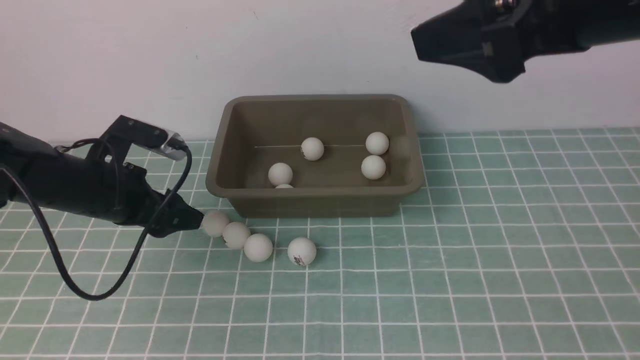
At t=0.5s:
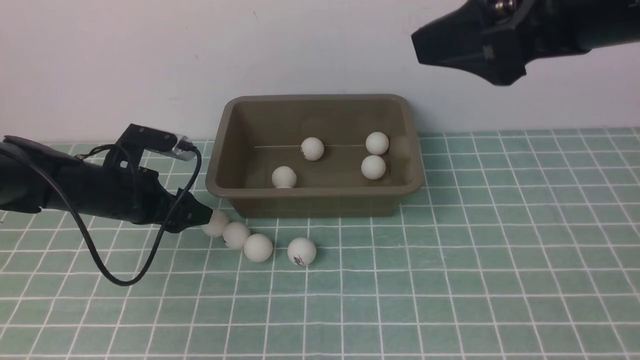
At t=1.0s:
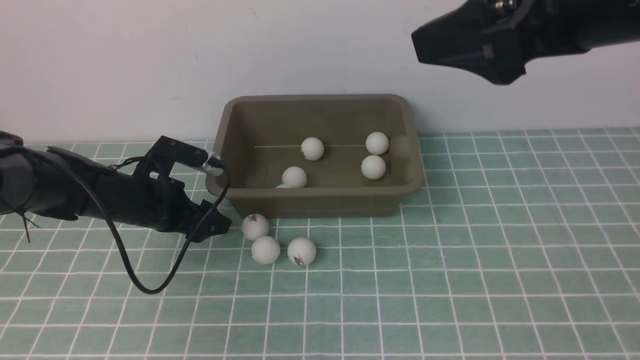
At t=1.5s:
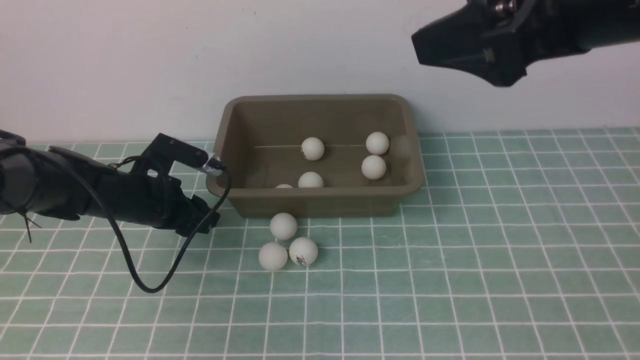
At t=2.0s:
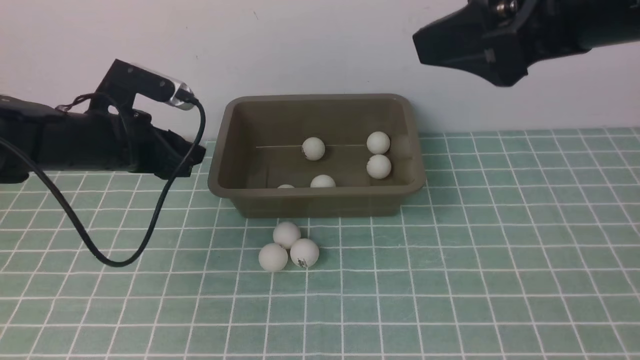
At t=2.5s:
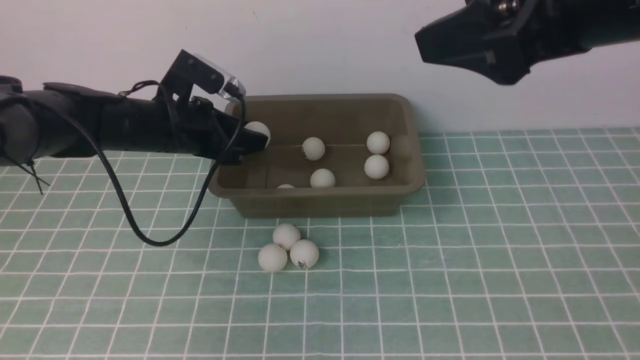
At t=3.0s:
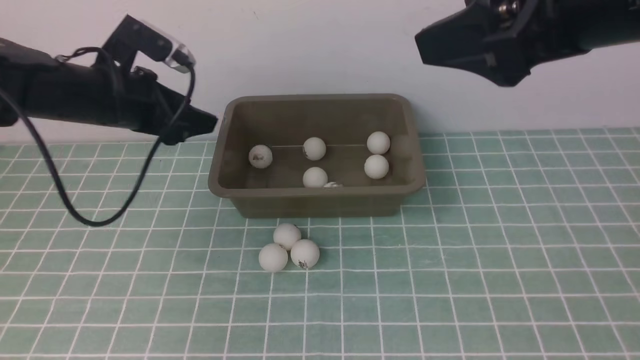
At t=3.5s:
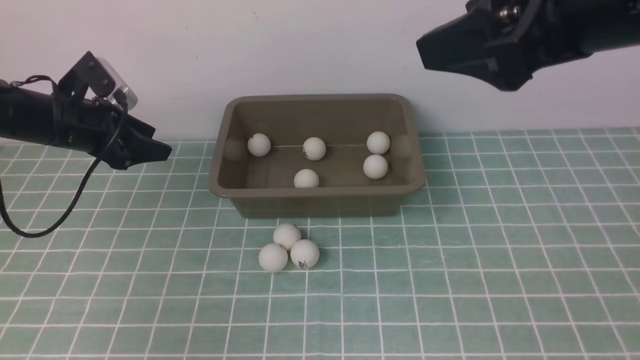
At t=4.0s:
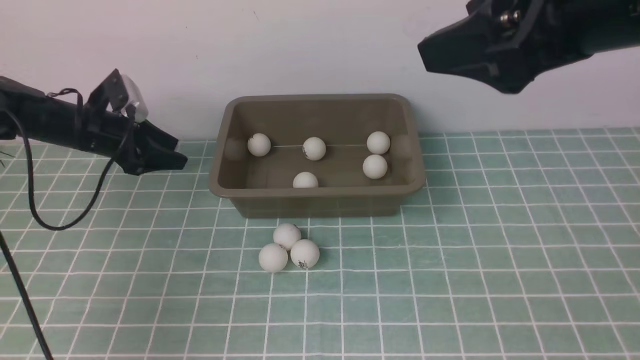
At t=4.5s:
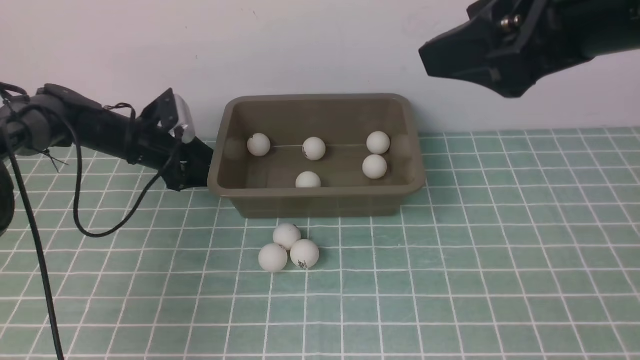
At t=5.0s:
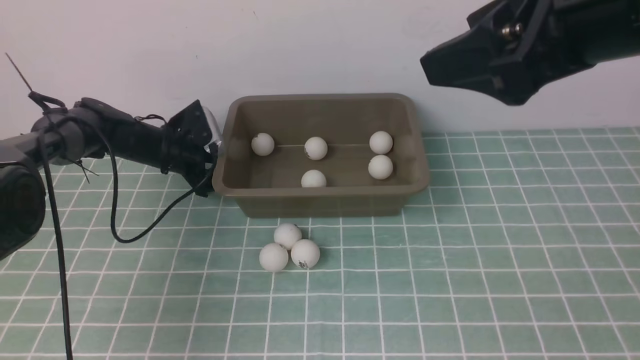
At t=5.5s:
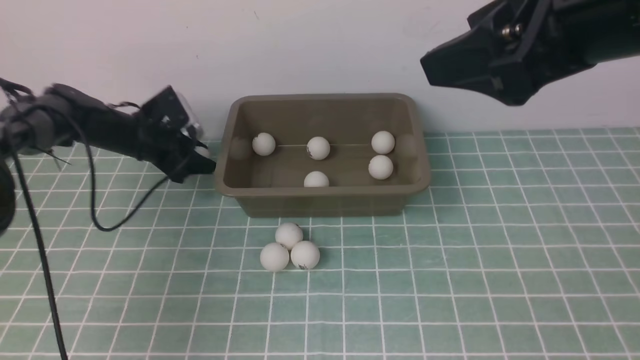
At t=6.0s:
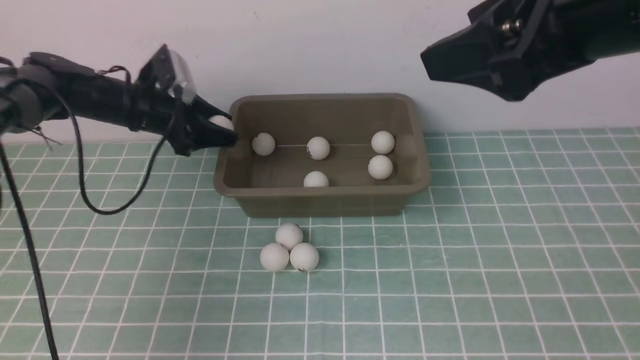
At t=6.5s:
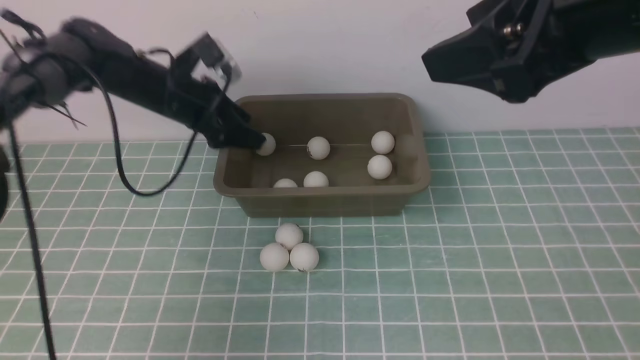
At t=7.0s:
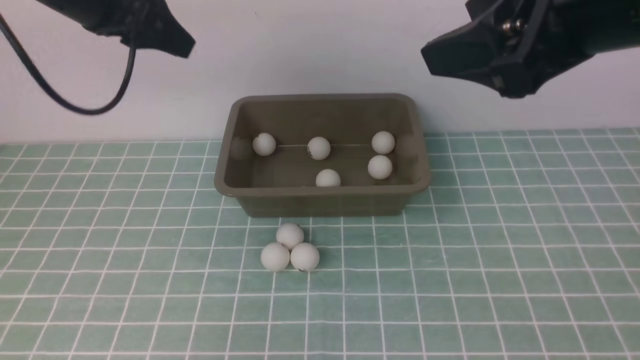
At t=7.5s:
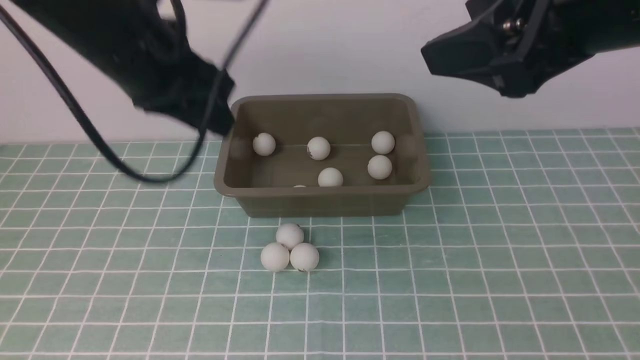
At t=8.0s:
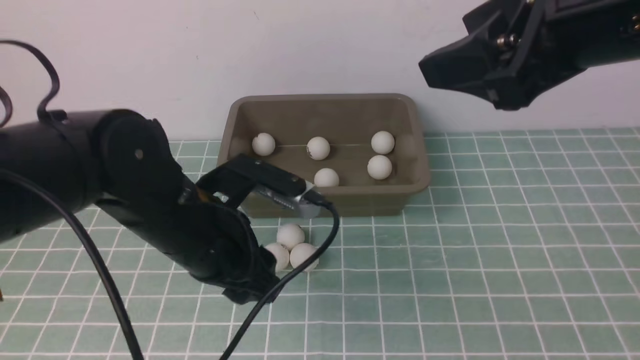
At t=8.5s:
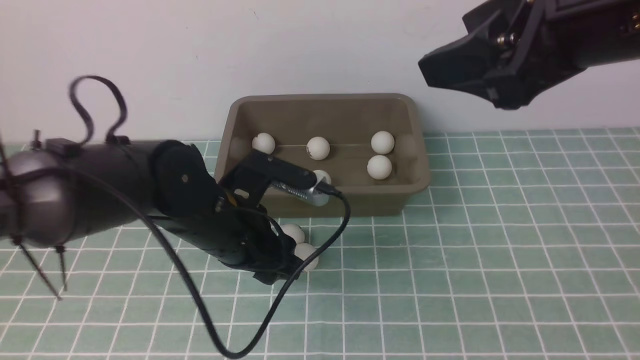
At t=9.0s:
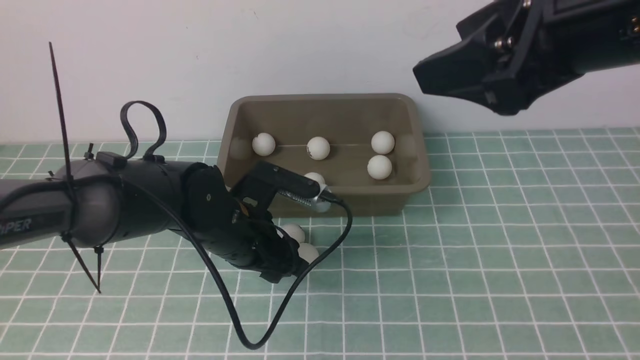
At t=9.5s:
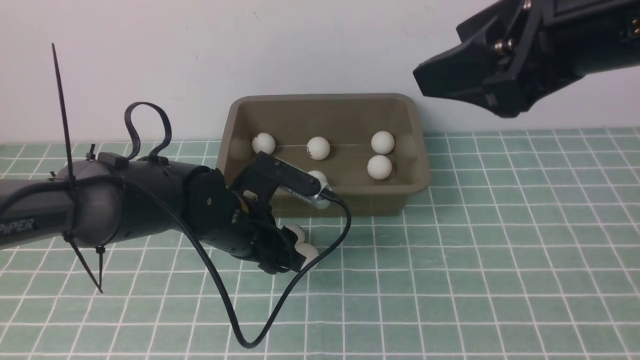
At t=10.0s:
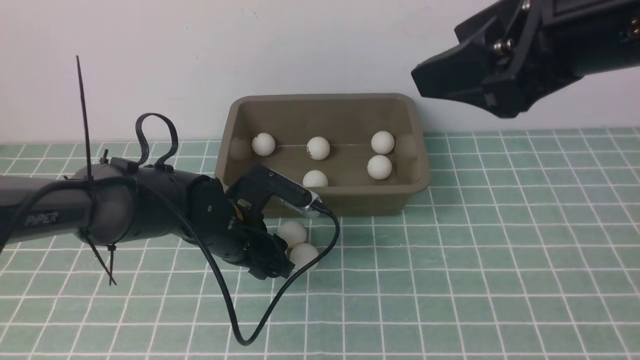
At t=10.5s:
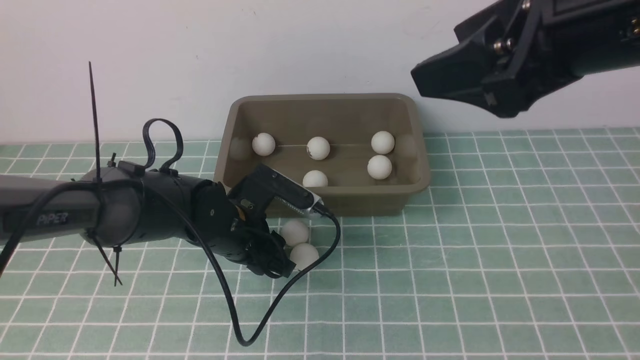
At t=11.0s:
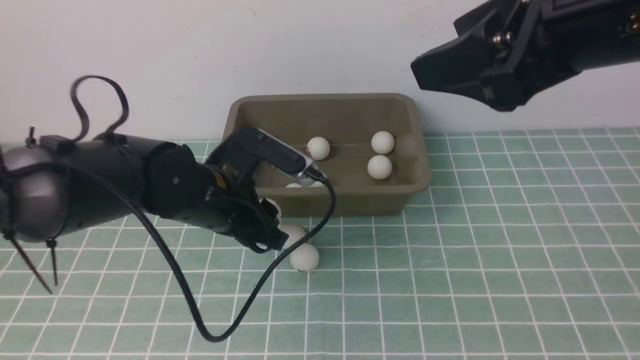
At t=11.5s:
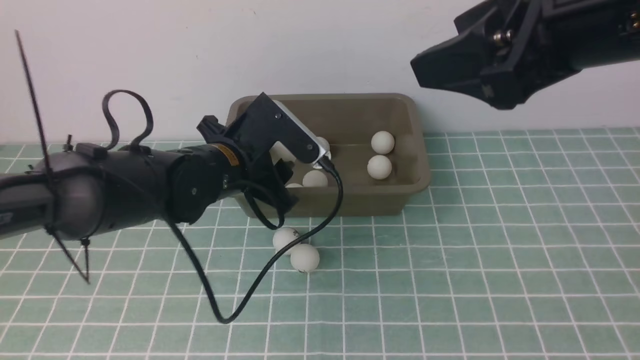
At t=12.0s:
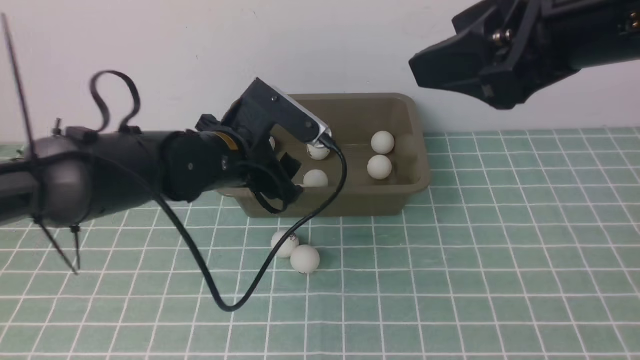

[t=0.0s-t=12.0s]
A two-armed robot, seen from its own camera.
Step, t=2.0s to t=2.5s: use the left arm to put the table tennis ball into the box.
Step, t=3.0s to t=5.5s: use the left arm to clamp the table tennis ball closest to it.
Step, t=7.0s to t=11.0s: use the left arm to clamp the table tennis ball closest to it.
Step, t=11.5s to t=12.0s: use the left arm to put the table tennis ball into the box.
t=0.0s to t=2.0s: The left gripper ends up about 5 cm from where it was, and closes up.
t=2.0s to t=4.0s: The left gripper travels forward, to the left and downward by approximately 15 cm, and opens up.
t=4.0s to t=6.0s: The left gripper moves to the right, approximately 5 cm, reaches roughly 5 cm downward, then returns, and closes.
t=6.0s to t=8.0s: The left gripper is displaced backward and to the right by about 25 cm, and opens, then closes once more.
t=8.0s to t=10.0s: The left gripper heads downward and forward, covering approximately 10 cm.
t=10.0s to t=12.0s: The left gripper moves upward, about 10 cm, and closes, then reopens.

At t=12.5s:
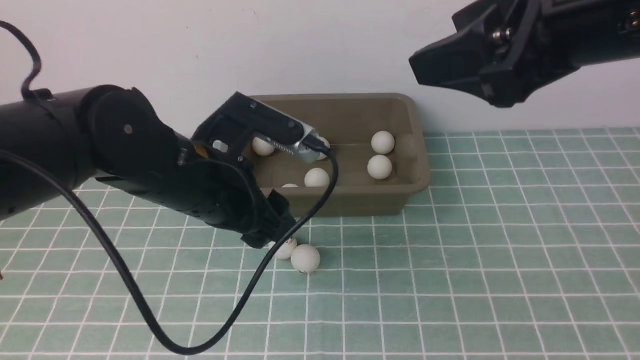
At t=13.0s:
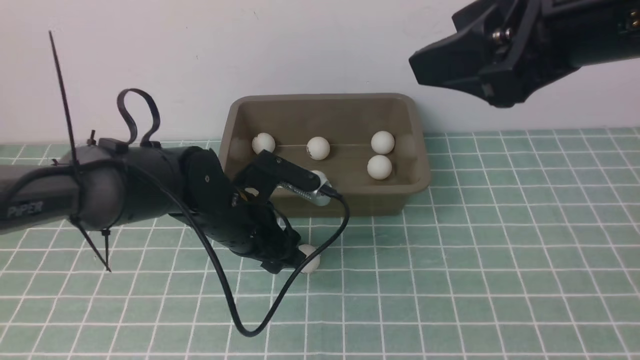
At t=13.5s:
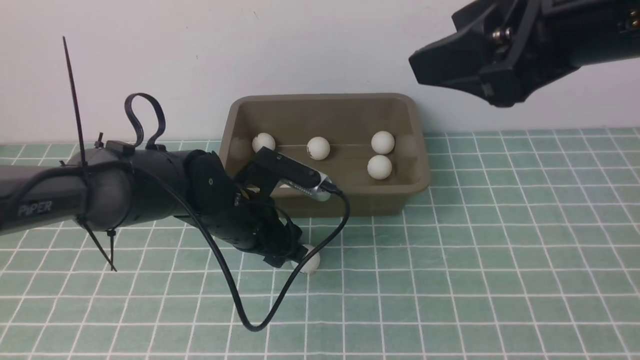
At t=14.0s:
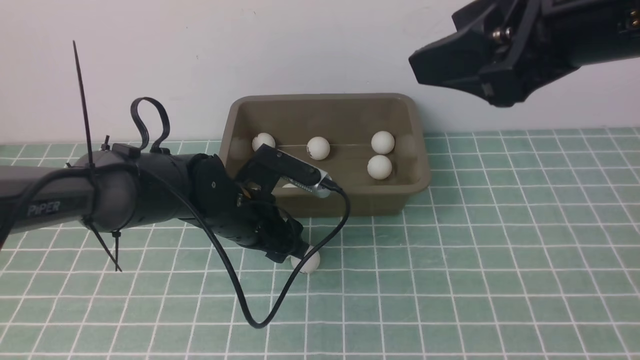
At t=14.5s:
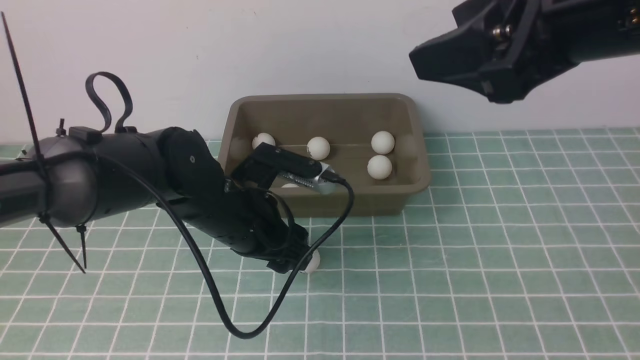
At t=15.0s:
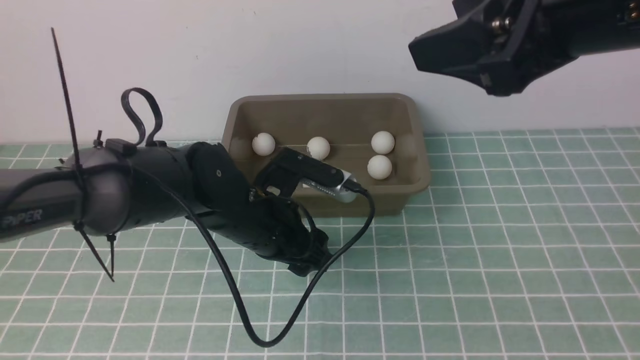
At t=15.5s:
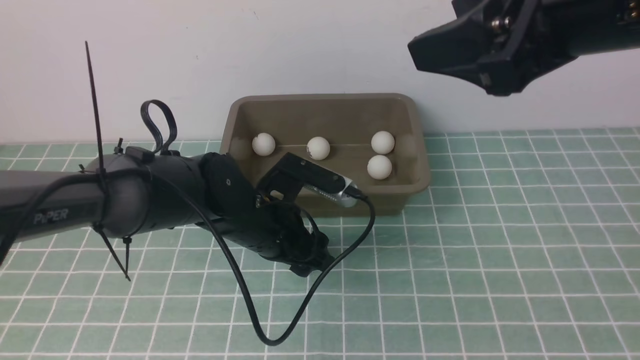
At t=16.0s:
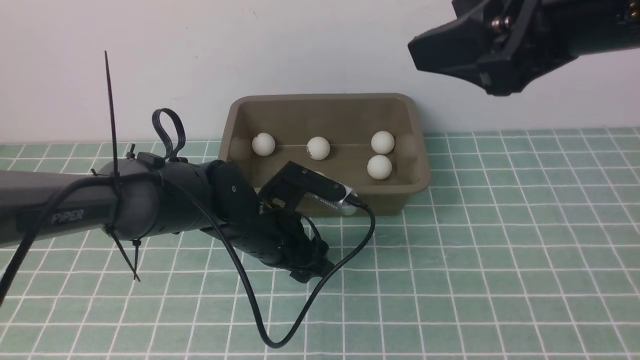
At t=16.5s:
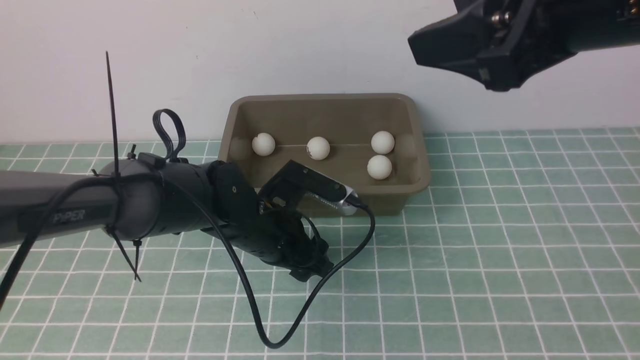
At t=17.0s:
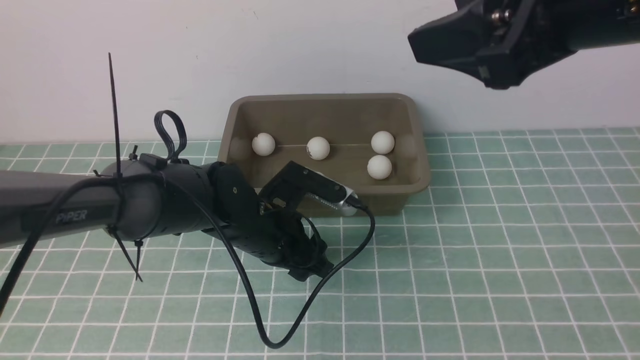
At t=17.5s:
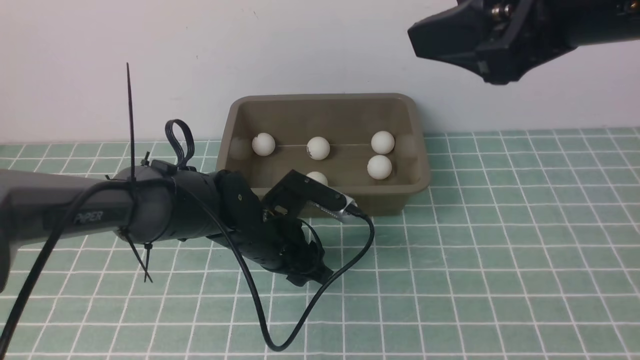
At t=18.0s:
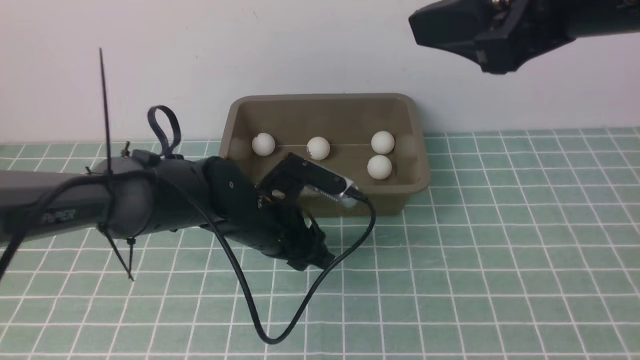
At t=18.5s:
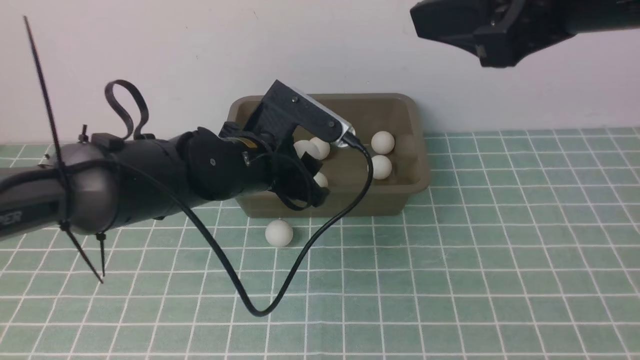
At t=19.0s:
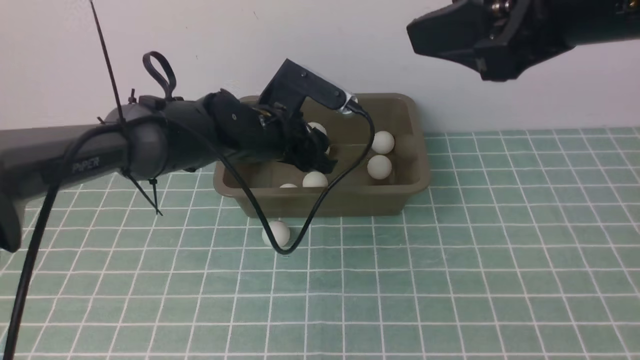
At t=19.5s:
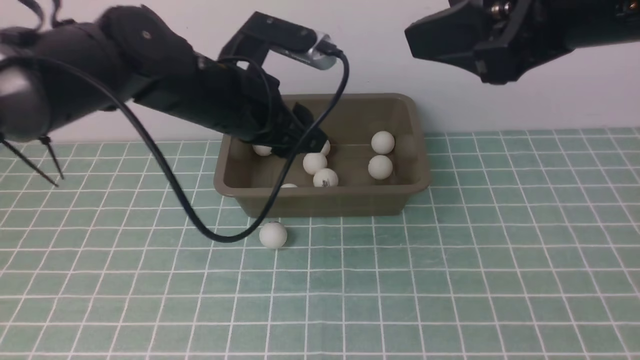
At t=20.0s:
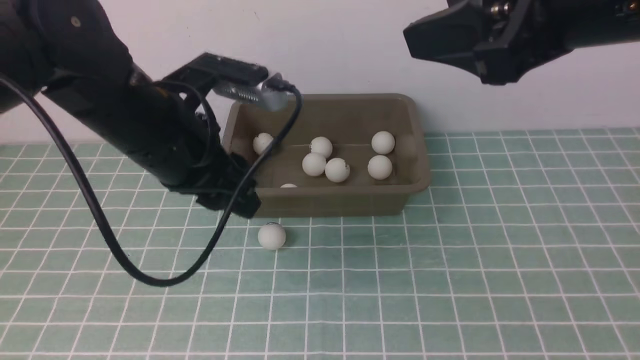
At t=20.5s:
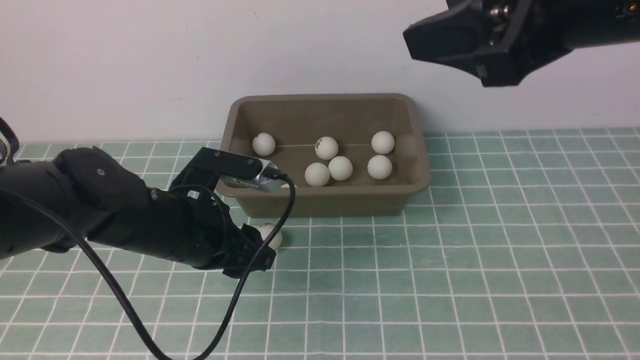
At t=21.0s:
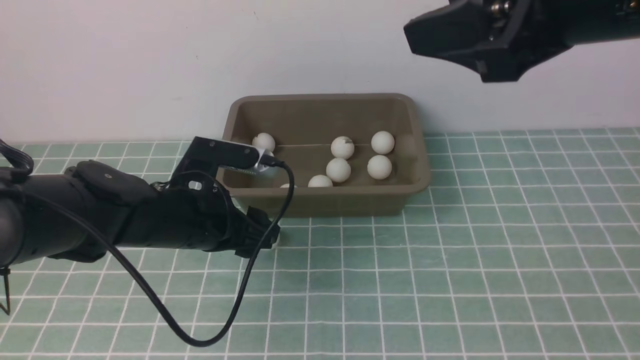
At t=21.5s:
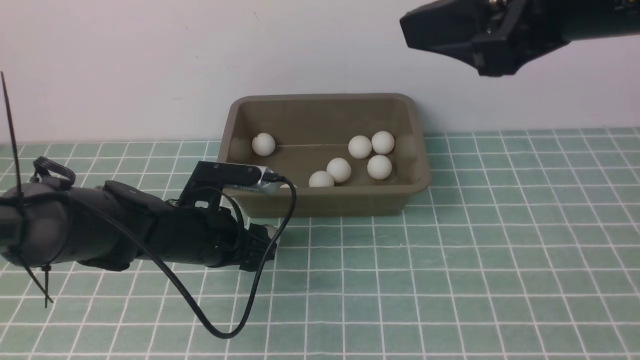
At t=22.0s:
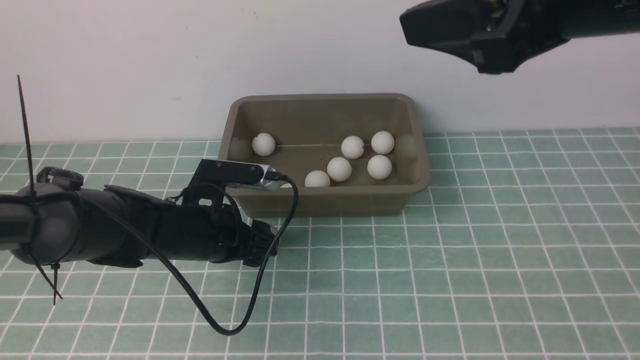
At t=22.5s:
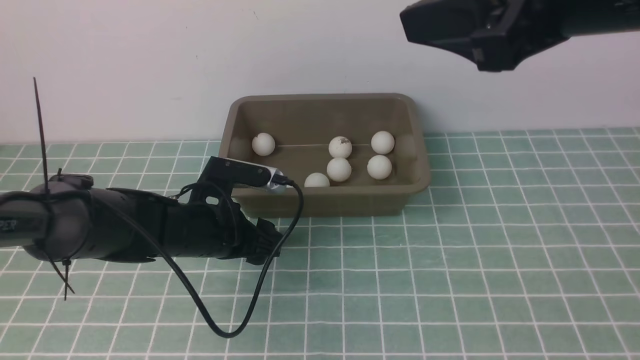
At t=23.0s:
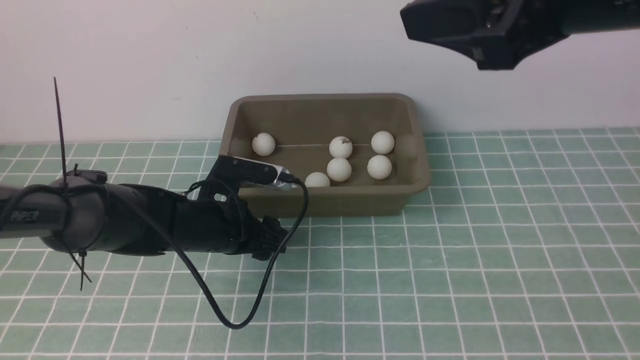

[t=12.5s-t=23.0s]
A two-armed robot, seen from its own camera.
Step, t=12.5s to t=18.0s: use the left arm to clamp the table tennis ball closest to it.
Step, t=18.5s to t=19.0s: use the left arm to put the table tennis ball into the box.
t=12.5s to t=14.5s: The left gripper shifts about 5 cm downward.
t=14.5s to t=16.5s: The grippers stay close to where they were, moving slightly.
t=16.5s to t=19.0s: The left gripper shifts approximately 10 cm forward and upward.
t=19.0s to t=21.0s: The left gripper moves backward and to the left, approximately 10 cm, and closes, then opens again.
t=21.0s to t=23.0s: The left gripper travels downward by about 5 cm.
